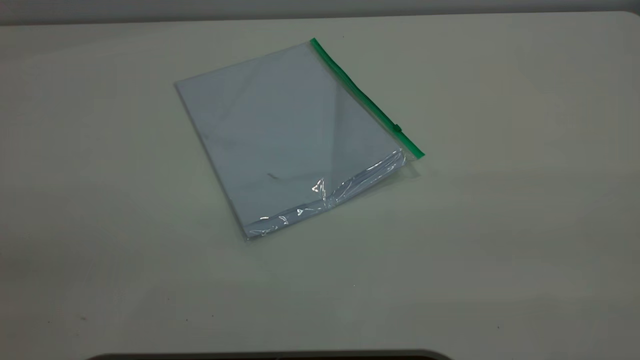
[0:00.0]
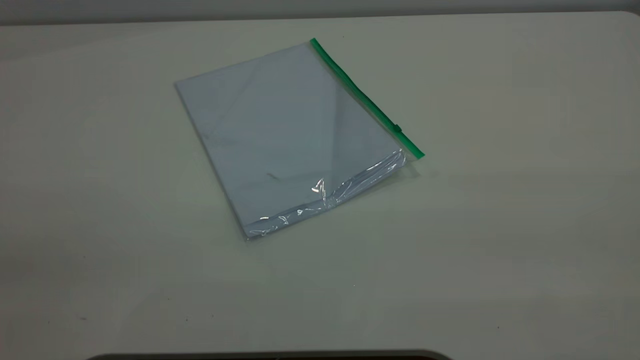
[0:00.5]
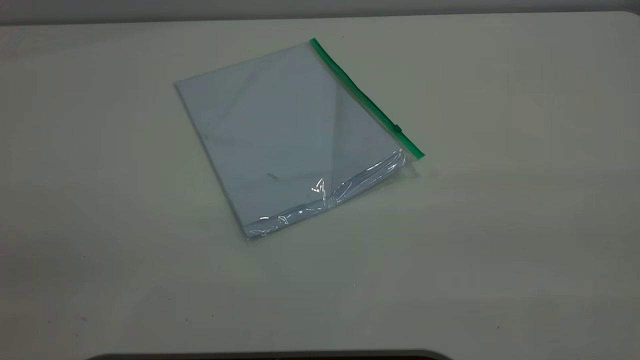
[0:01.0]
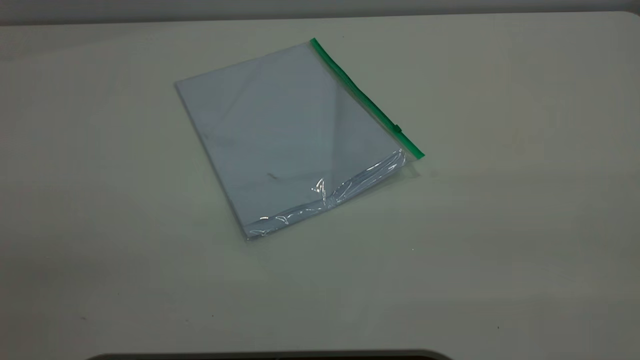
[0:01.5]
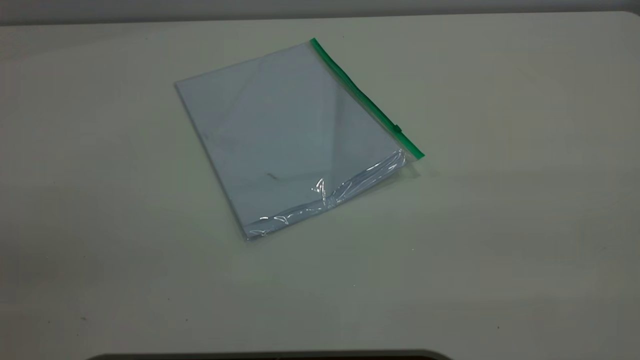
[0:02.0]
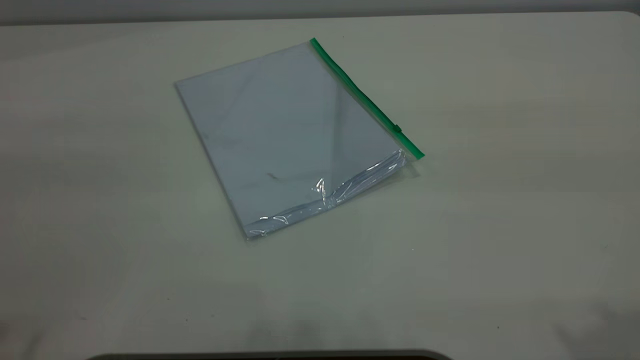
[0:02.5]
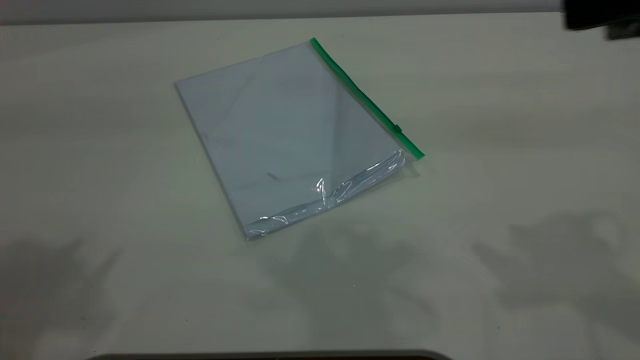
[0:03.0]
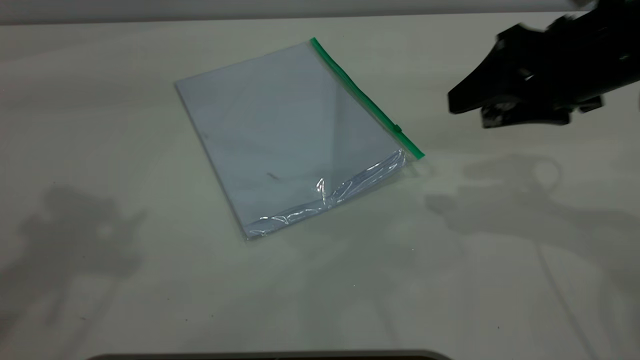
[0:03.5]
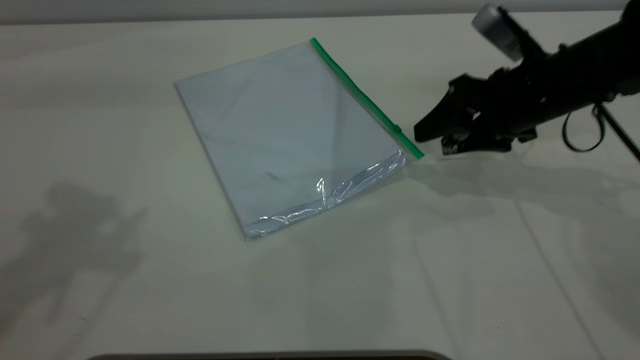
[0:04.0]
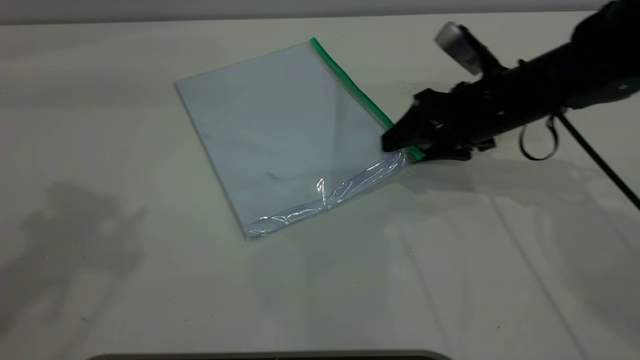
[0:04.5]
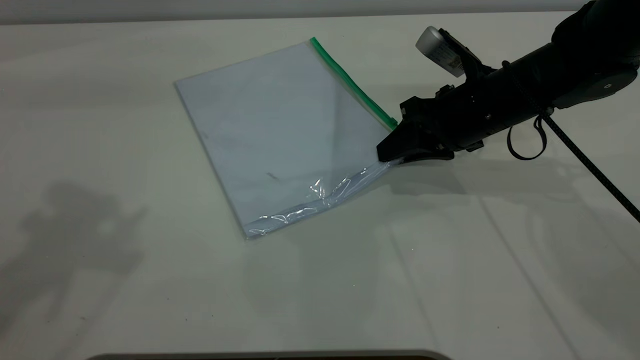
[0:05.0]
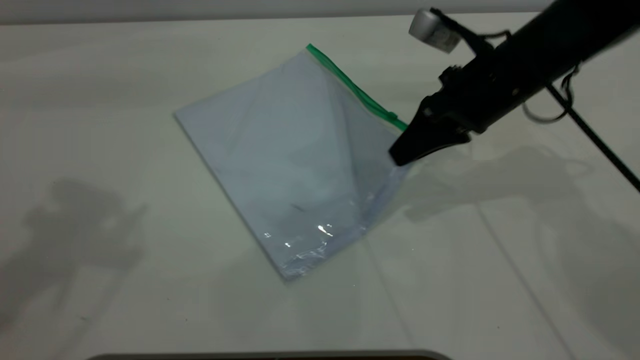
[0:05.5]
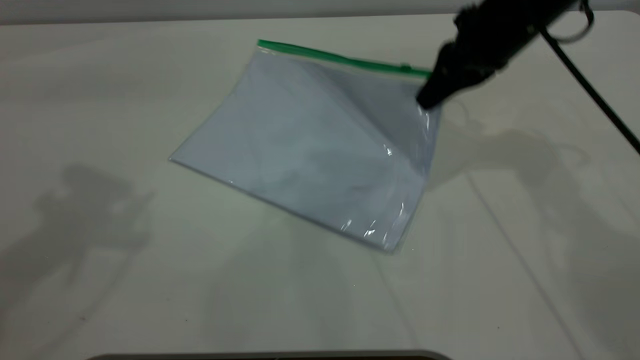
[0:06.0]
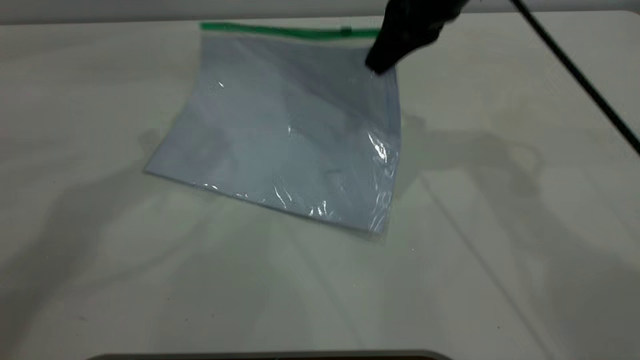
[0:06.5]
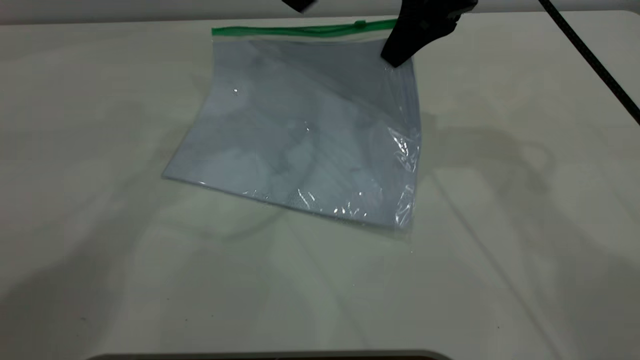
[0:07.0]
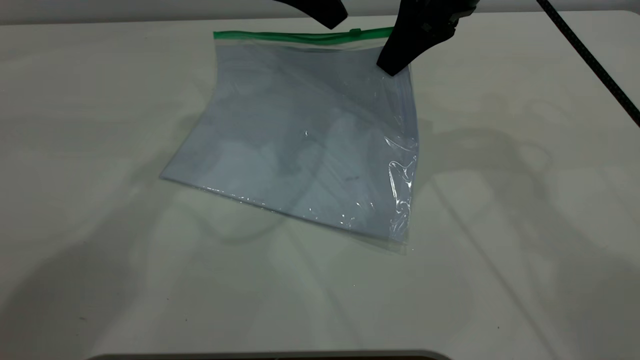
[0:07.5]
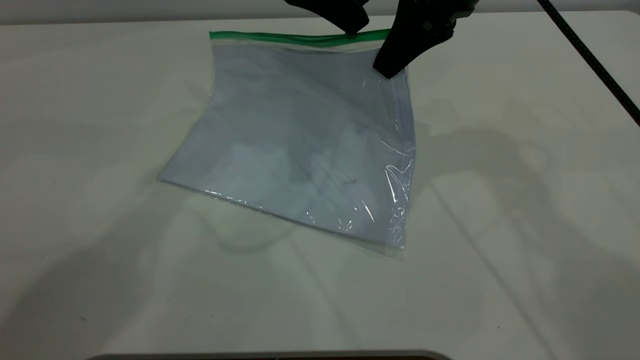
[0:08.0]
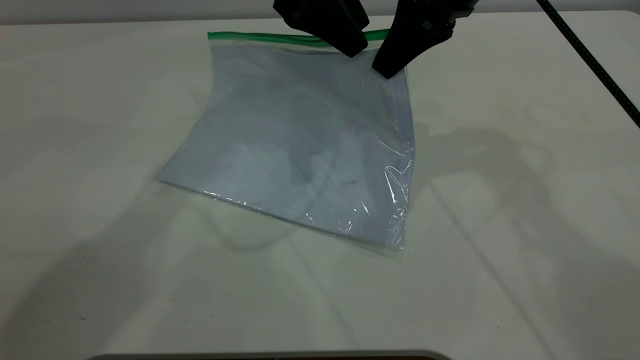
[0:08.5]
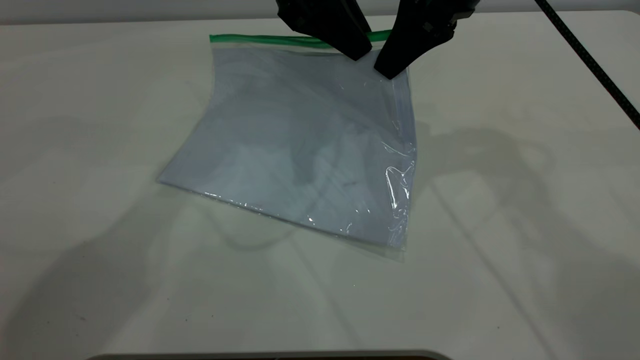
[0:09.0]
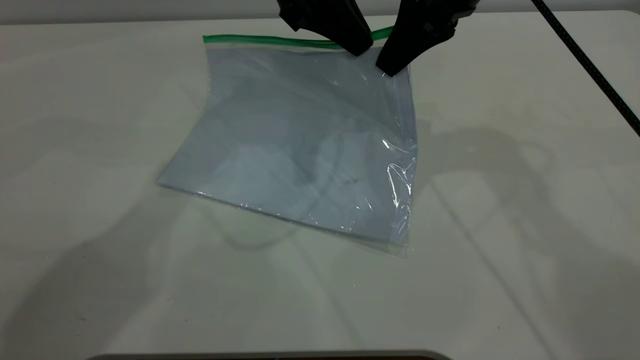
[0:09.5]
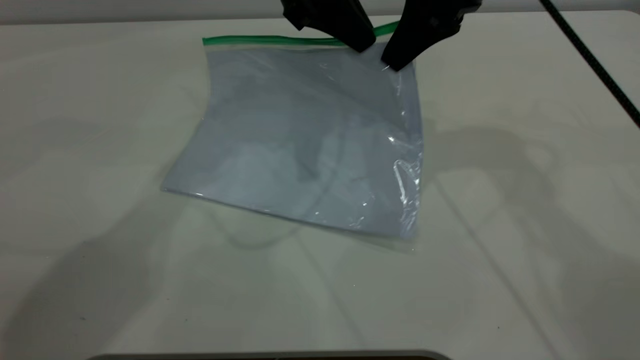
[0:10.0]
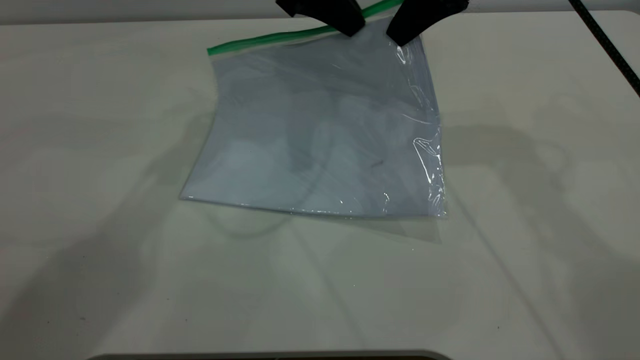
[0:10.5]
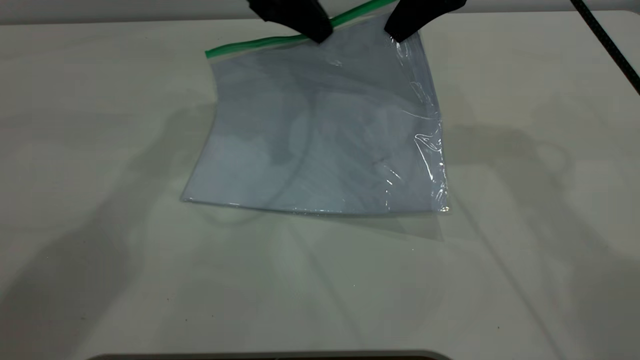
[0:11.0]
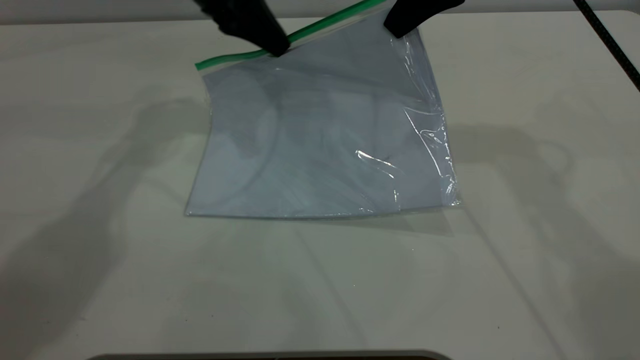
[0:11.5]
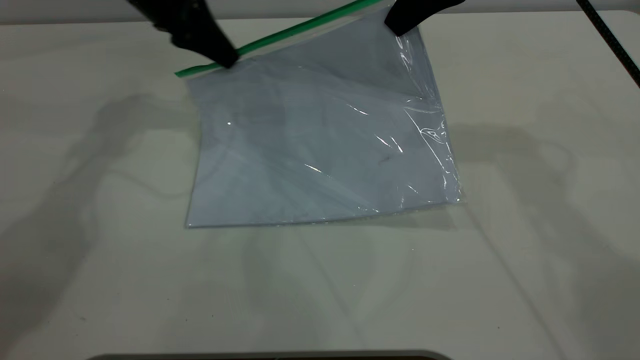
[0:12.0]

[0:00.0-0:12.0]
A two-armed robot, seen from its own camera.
Step, 0:00.0 to 0:05.0: Pick up the transparent plastic bag with the right gripper.
0:00.0 to 0:02.0: Neither gripper changes place.
0:02.0 to 0:04.0: The right gripper goes about 50 cm forward and downward.
0:04.0 to 0:06.0: The right gripper moves upward, roughly 10 cm, and closes up.
0:06.0 to 0:08.0: The left gripper moves to the right, forward and downward, approximately 30 cm, while the right gripper heads upward, covering about 5 cm.
0:08.0 to 0:10.0: The left gripper closes its fingers.
0:10.0 to 0:12.0: The left gripper goes some 15 cm to the left.

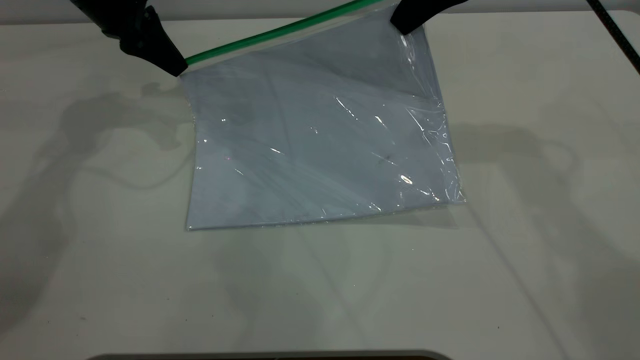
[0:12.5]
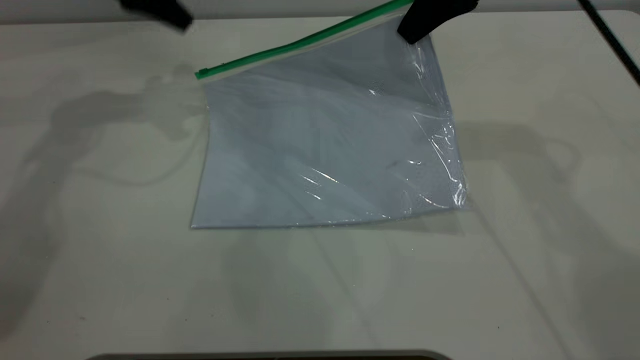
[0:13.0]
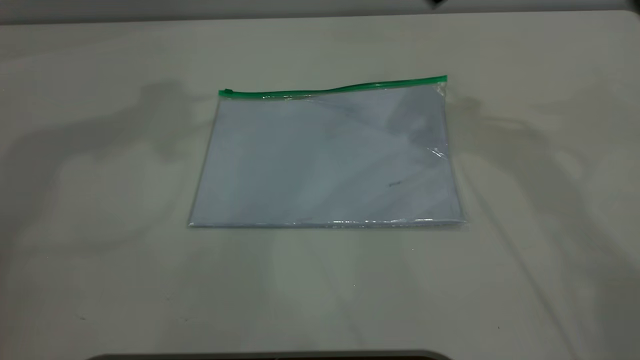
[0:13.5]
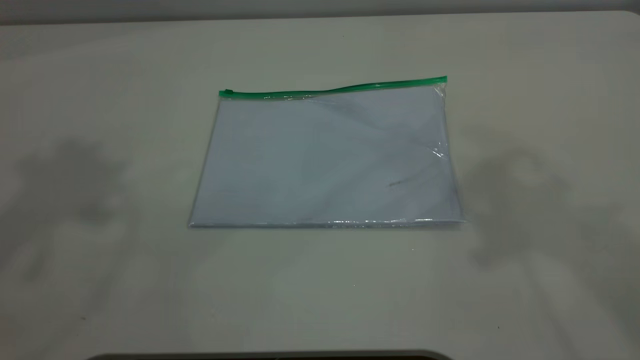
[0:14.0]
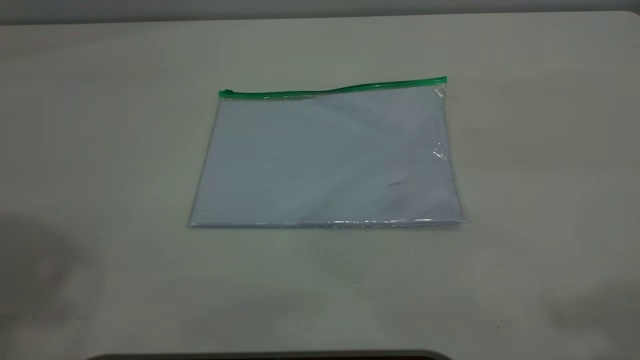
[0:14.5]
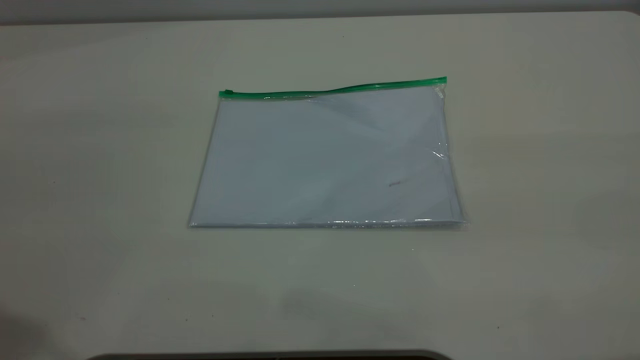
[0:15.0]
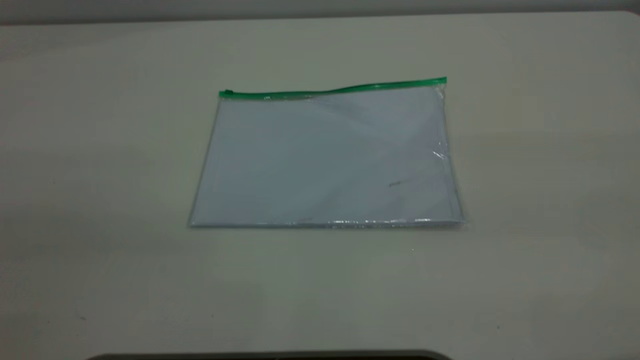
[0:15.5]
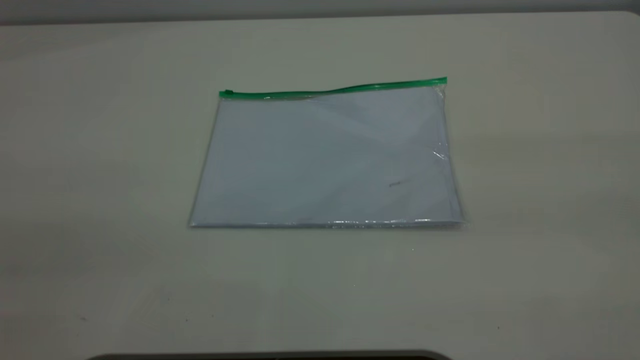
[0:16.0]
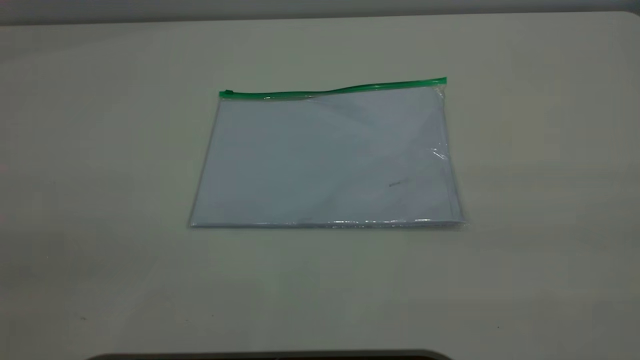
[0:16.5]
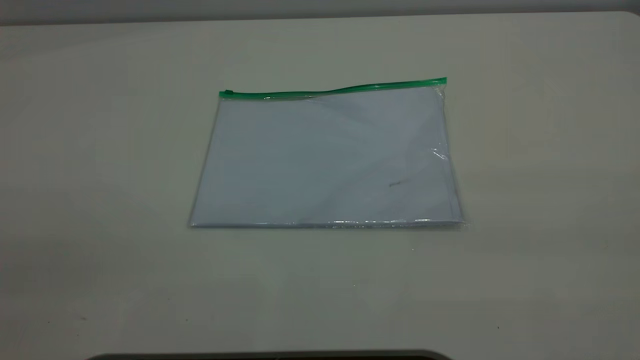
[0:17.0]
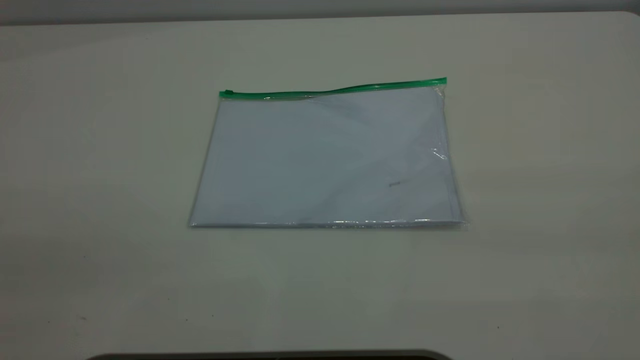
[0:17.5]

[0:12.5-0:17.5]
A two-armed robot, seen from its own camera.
0:12.5 to 0:15.0: The left gripper travels backward and upward by some 40 cm, and opens; the right gripper shifts some 35 cm backward, and opens its fingers.

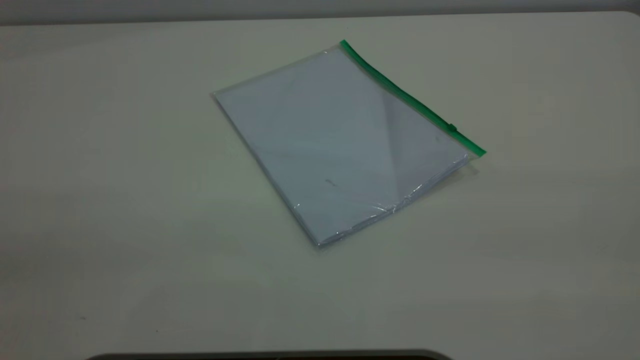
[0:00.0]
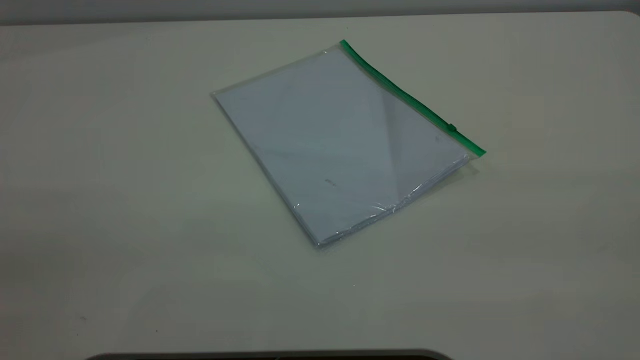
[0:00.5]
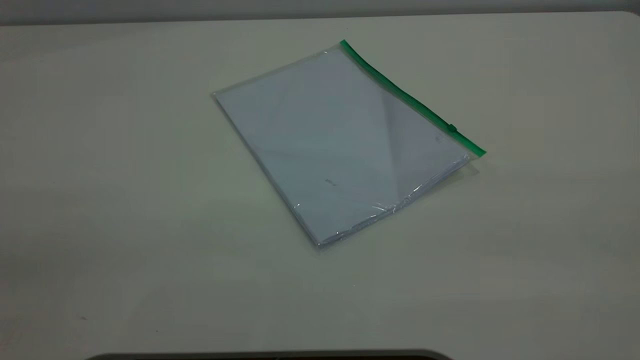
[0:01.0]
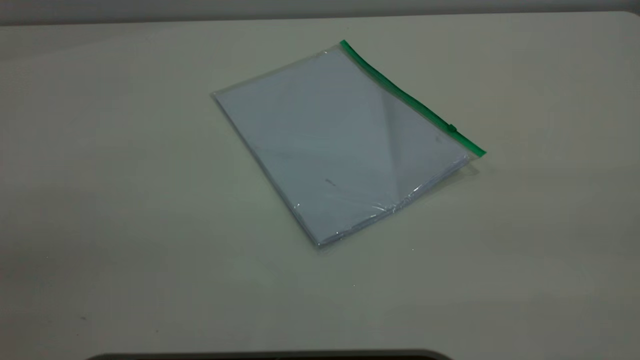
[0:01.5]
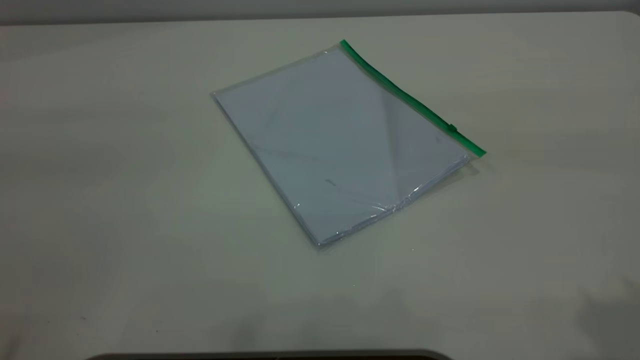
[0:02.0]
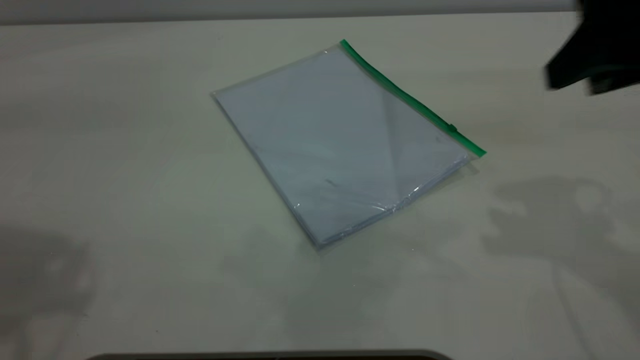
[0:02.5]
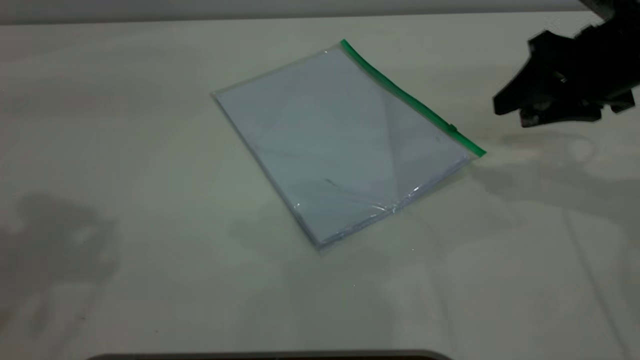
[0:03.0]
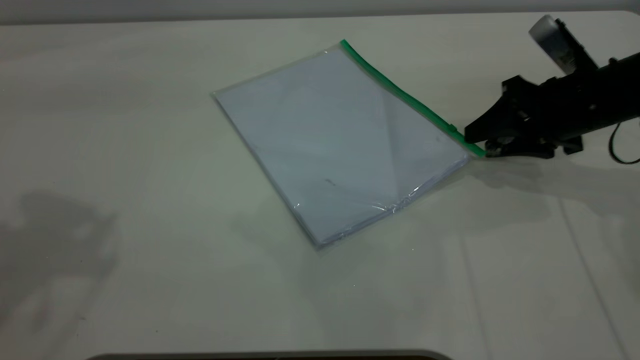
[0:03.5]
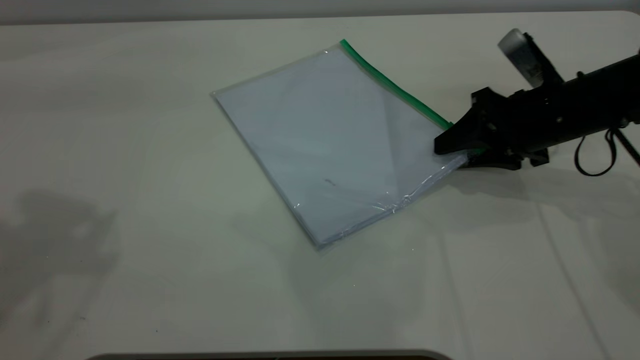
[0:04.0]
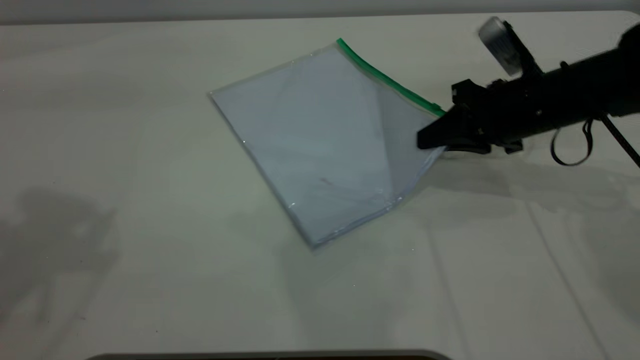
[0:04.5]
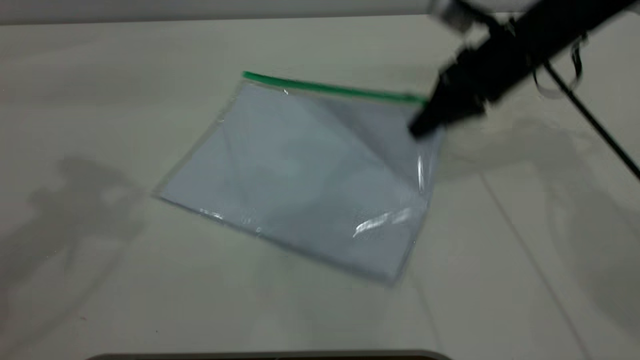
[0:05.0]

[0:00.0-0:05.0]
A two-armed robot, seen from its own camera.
Step, 0:00.0 to 0:04.0: Pick up the transparent plastic bag with the right gripper.
0:00.0 to 0:02.5: The right gripper goes roughly 30 cm forward and downward.
0:02.5 to 0:05.0: The right gripper travels forward and downward by roughly 20 cm, and closes up, while the left gripper is displaced forward and downward by some 10 cm.
